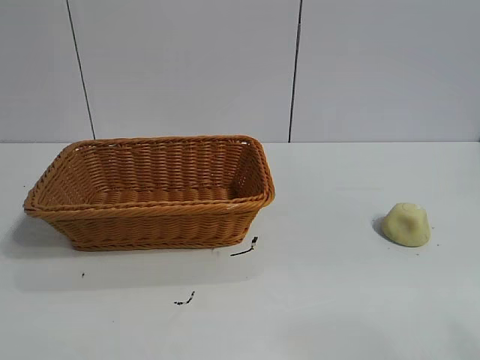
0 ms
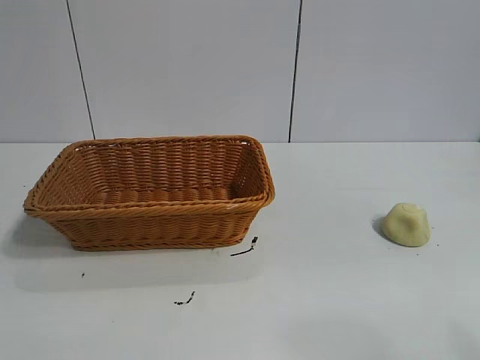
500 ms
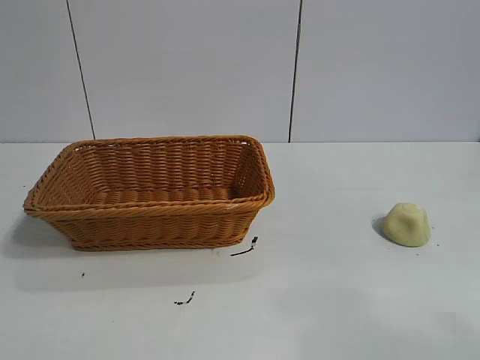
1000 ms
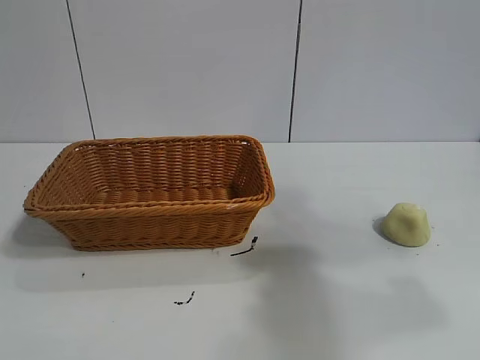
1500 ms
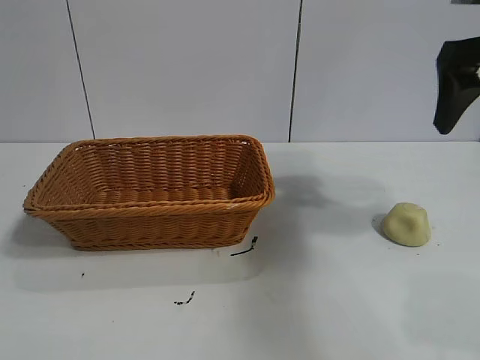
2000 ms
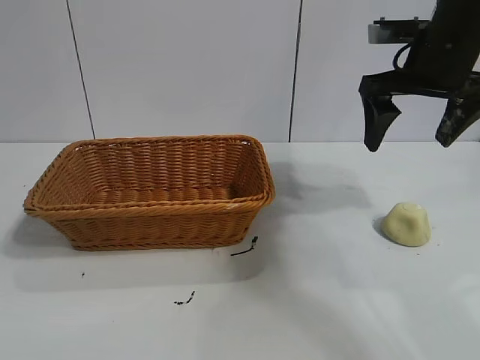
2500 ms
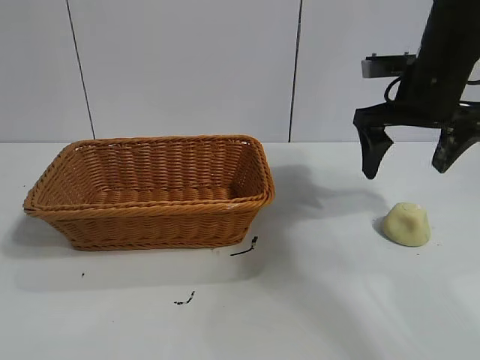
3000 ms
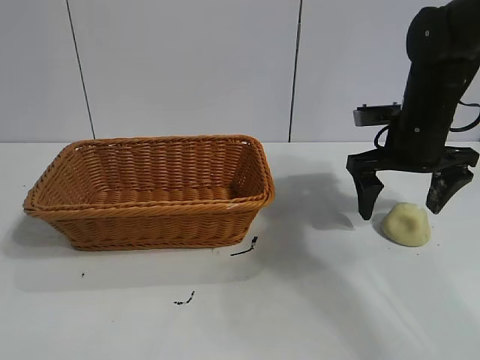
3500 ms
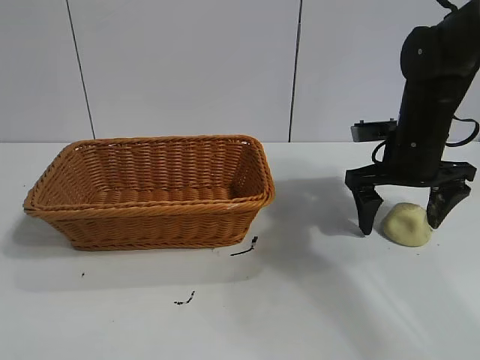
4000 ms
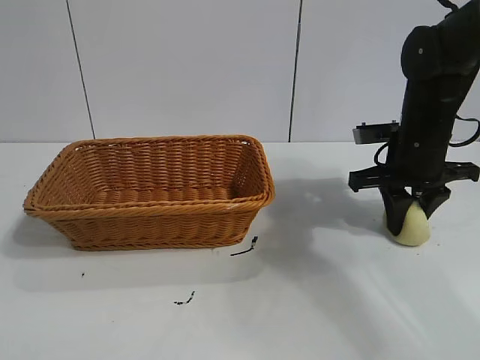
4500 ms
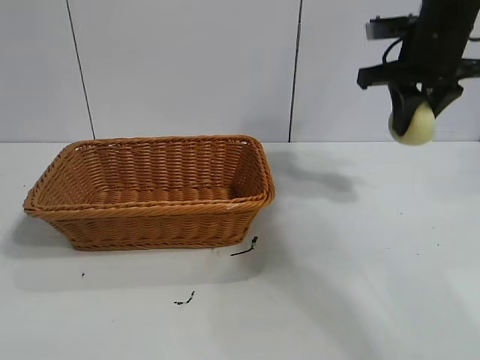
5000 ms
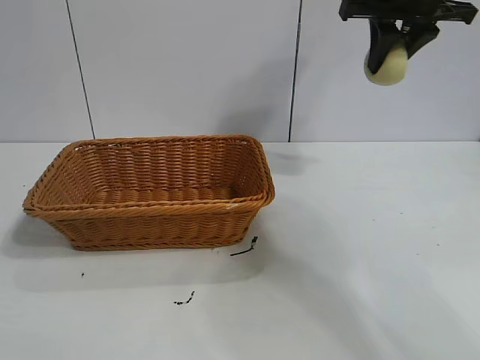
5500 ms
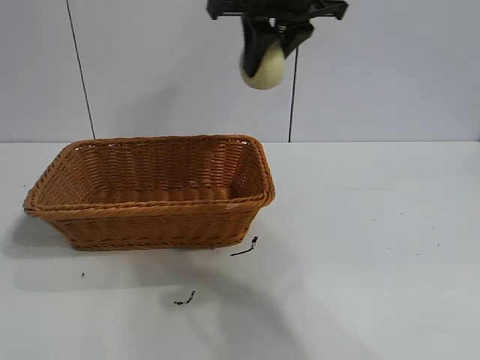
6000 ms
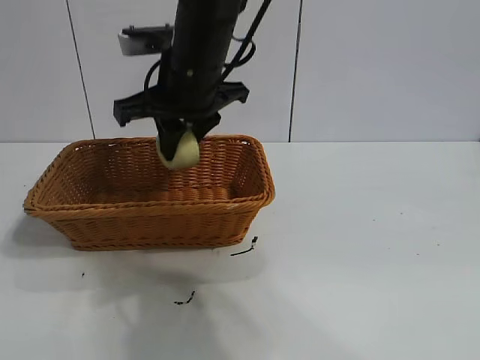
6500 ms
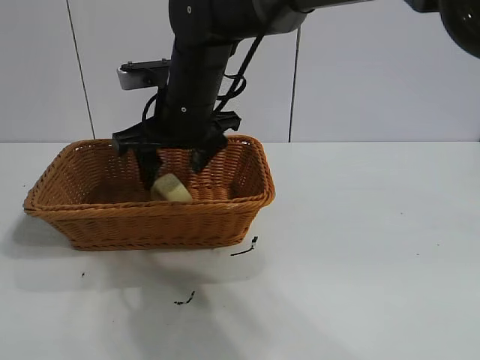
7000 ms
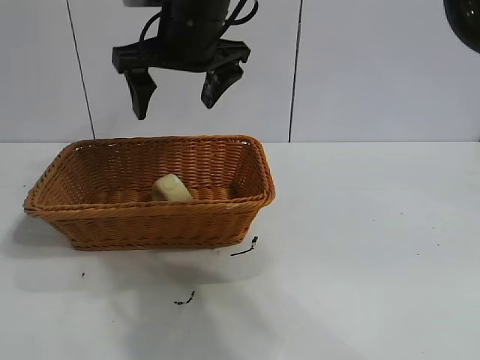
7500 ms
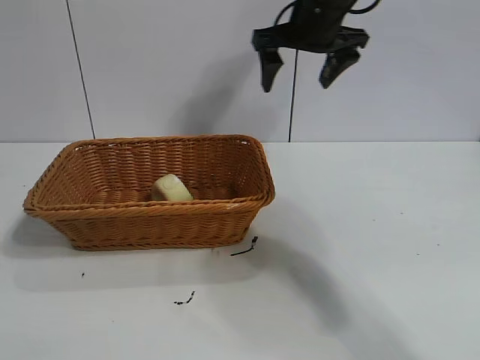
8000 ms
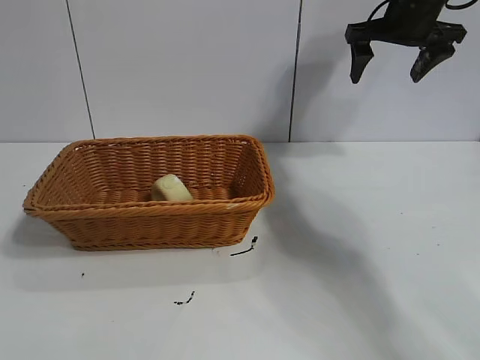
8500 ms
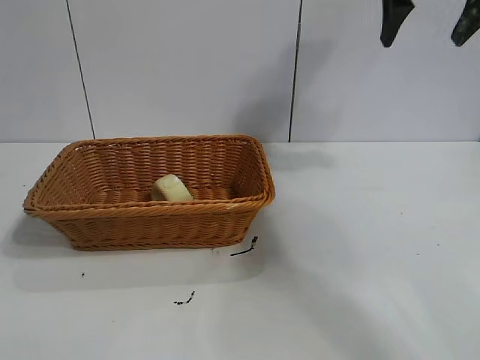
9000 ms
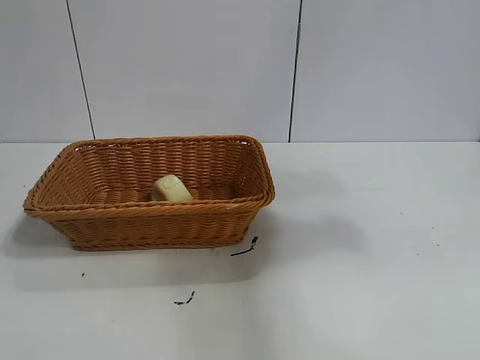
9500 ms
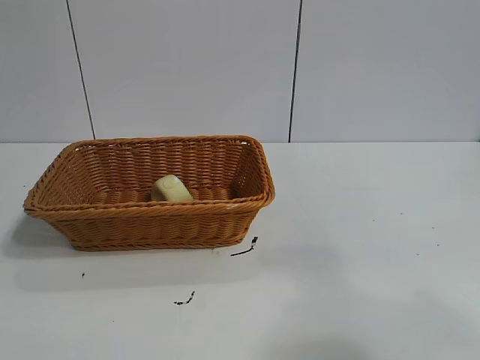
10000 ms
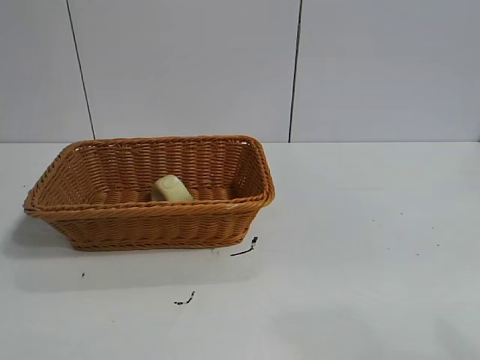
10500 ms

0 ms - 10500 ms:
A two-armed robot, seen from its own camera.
Task of the whole recording: pick up the egg yolk pastry and put it into the basket.
Step, 1000 ms - 4000 ms: Grasp egg yolk pastry with right gripper.
Step, 4500 ms - 7000 ms: Place the egg yolk pastry in the basket with right gripper.

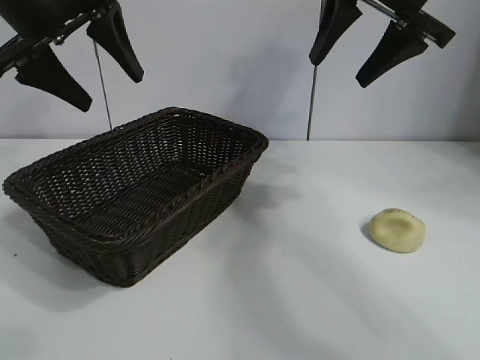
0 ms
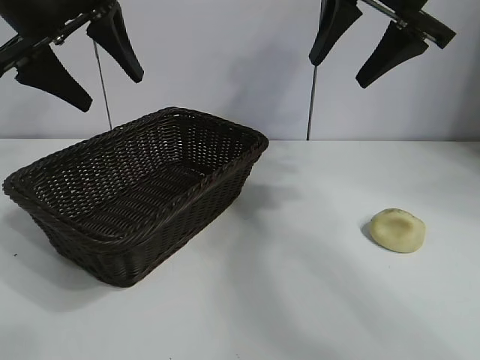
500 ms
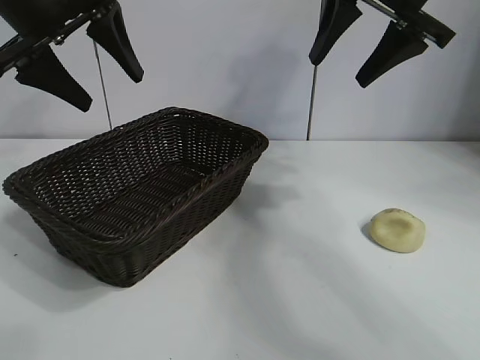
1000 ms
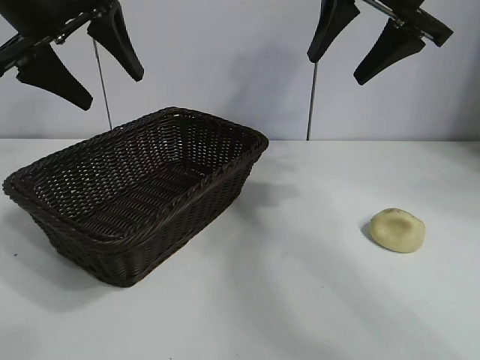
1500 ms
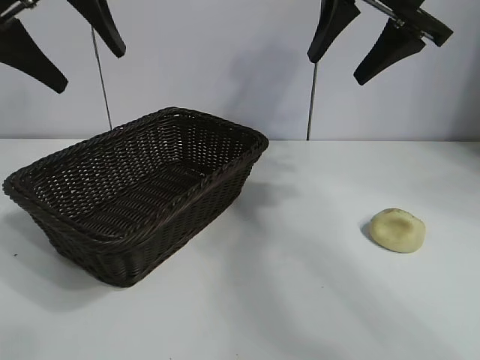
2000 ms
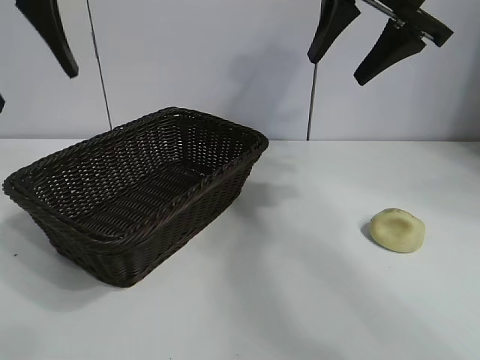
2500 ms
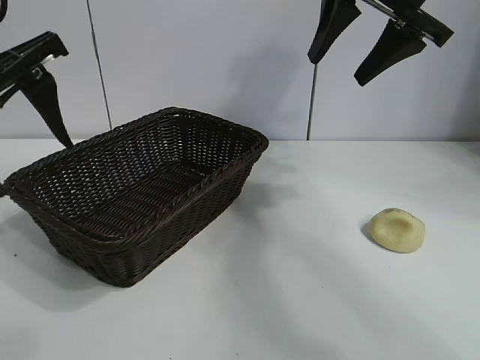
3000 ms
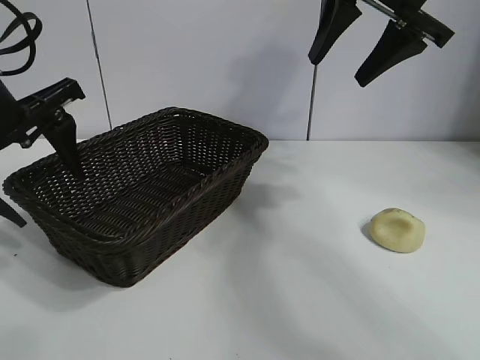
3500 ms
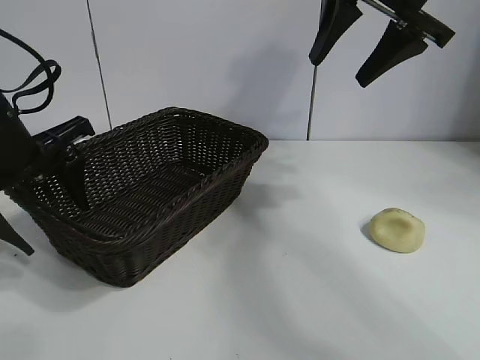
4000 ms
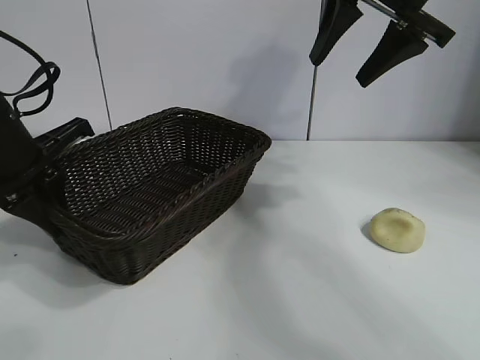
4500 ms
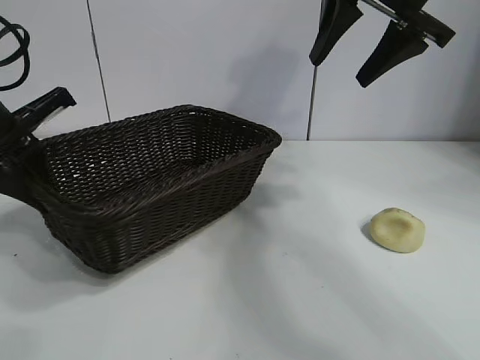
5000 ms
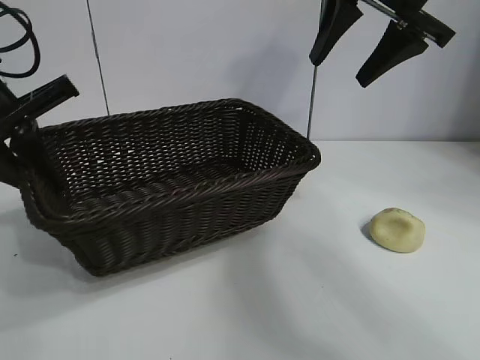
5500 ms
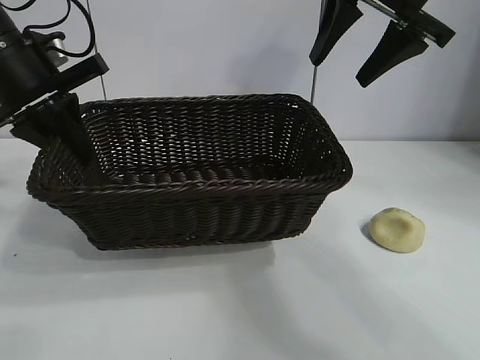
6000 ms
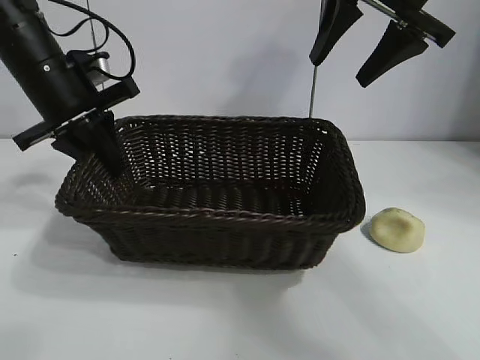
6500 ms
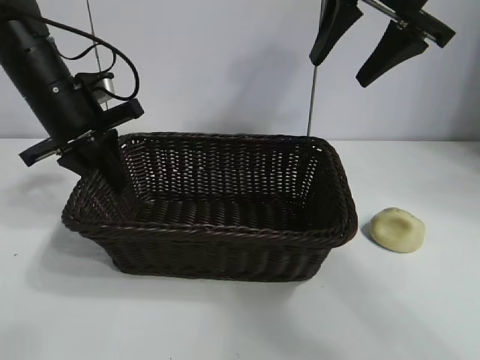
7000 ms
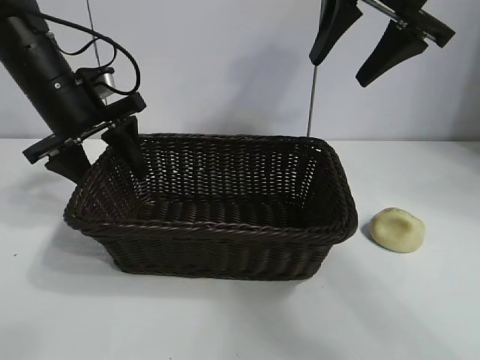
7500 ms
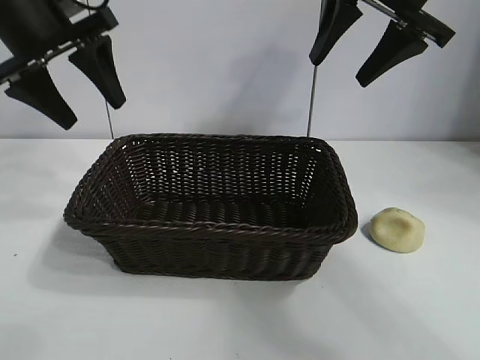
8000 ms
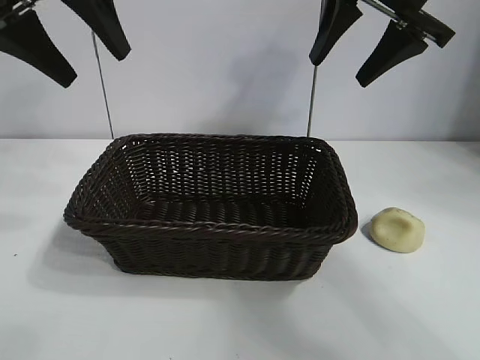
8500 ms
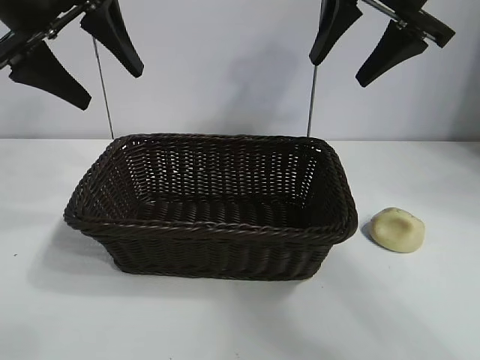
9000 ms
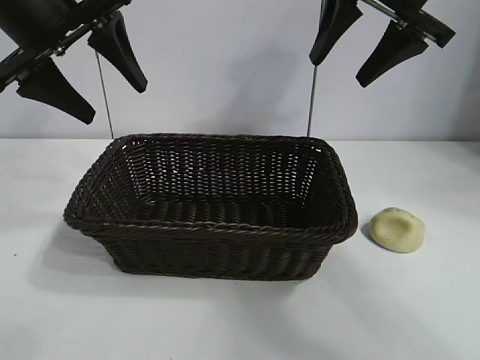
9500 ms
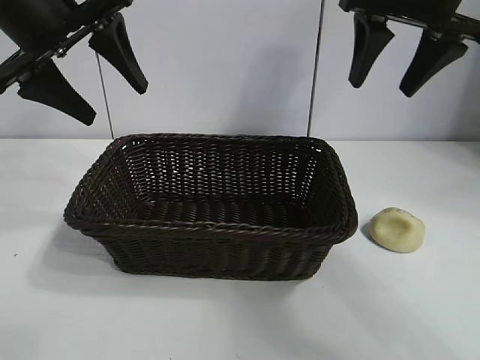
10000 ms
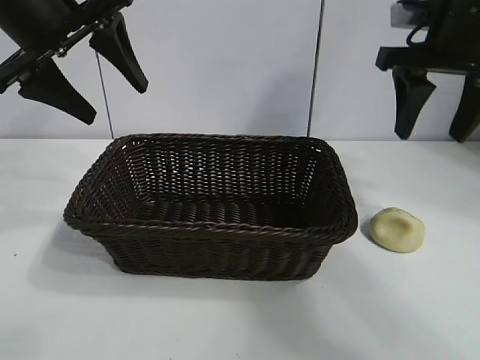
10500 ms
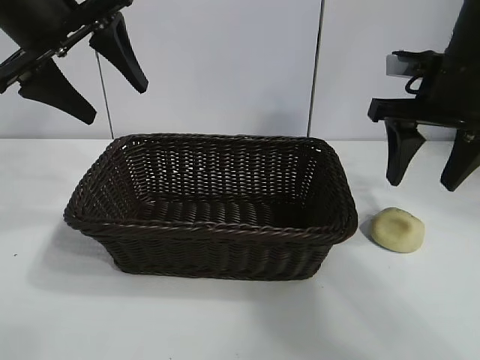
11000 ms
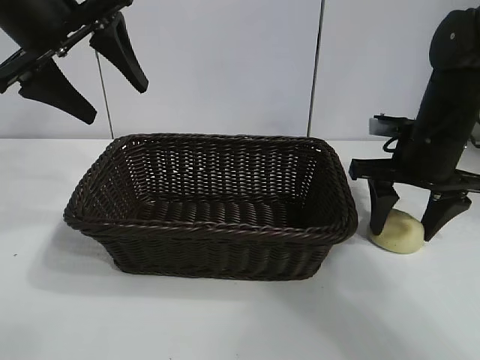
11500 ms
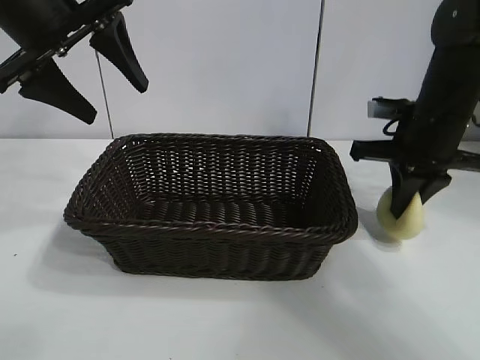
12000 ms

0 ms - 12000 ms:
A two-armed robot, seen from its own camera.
Task of the whole recording: pick up the egg yolk pastry and put it into the basket.
Step, 1500 ms - 4000 ms: Grasp the basket with left gripper.
Step, 4500 ms - 7500 ms: Place the basket in the center of view with left gripper.
Step, 8000 ms - 11500 ms: Grasp egg yolk pastry with right gripper.

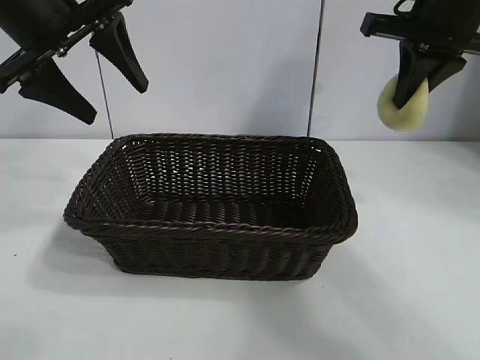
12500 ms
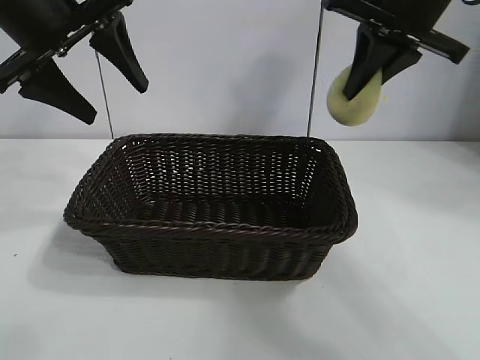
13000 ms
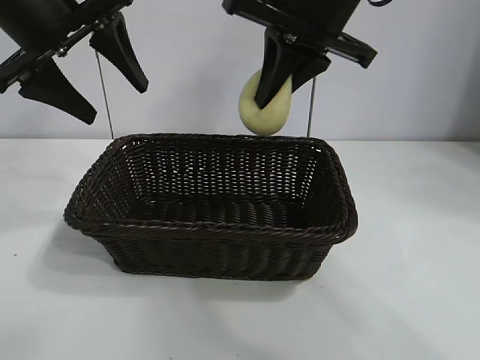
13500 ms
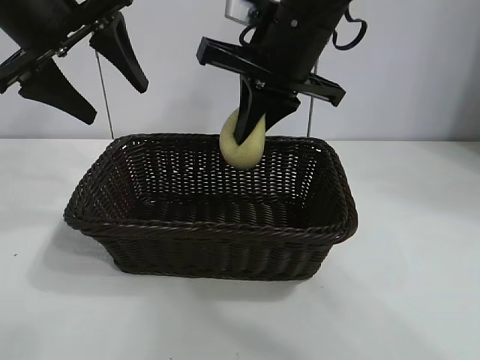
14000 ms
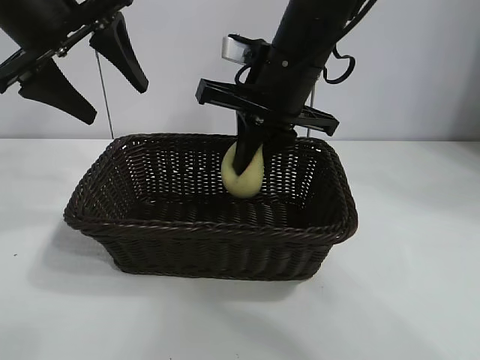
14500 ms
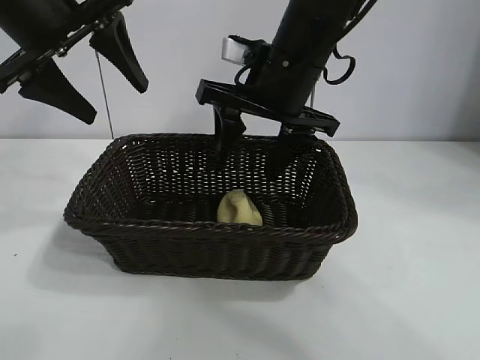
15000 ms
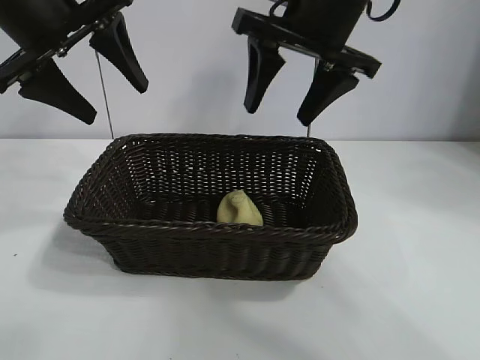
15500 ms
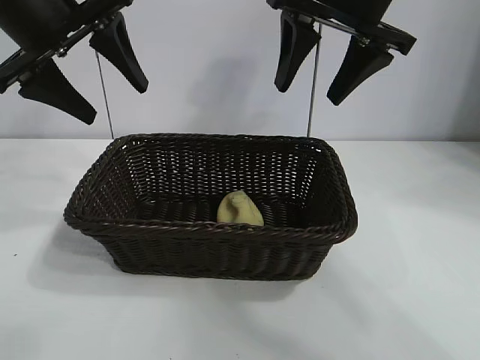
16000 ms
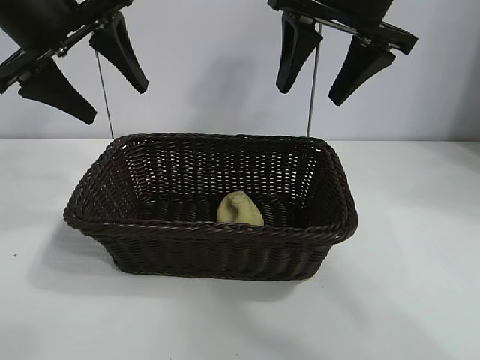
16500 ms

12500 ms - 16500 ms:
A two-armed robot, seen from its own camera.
Task of the whole recording: pick up the egg yolk pastry and put it into the basket.
Step, 12500 ms - 15000 ms: Place the egg yolk pastry in the basket with right gripper.
